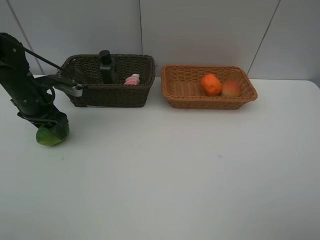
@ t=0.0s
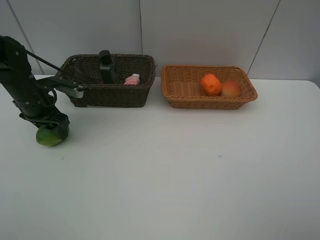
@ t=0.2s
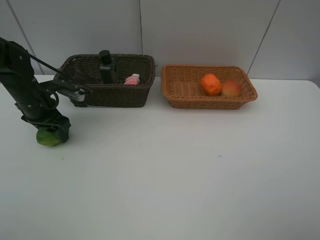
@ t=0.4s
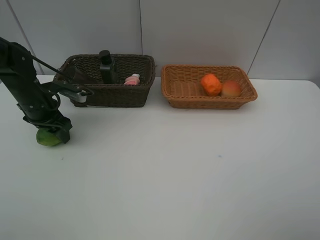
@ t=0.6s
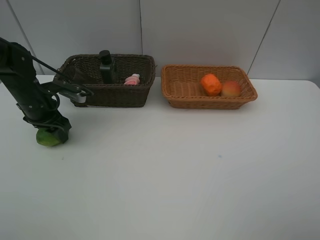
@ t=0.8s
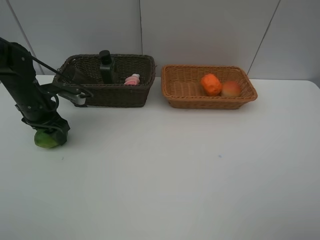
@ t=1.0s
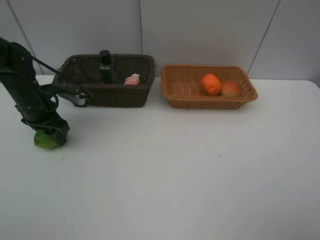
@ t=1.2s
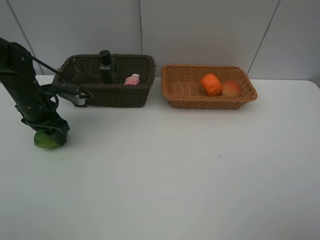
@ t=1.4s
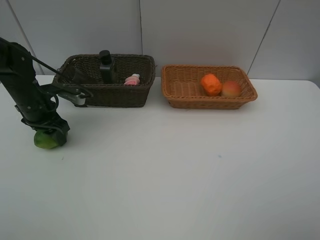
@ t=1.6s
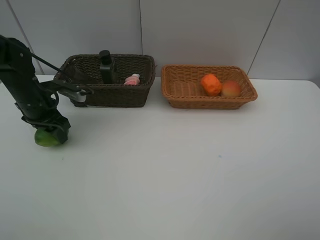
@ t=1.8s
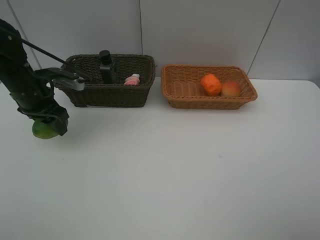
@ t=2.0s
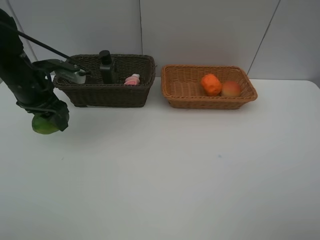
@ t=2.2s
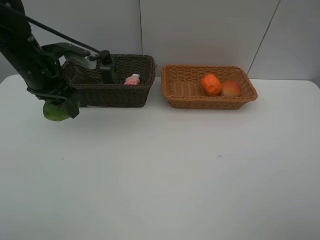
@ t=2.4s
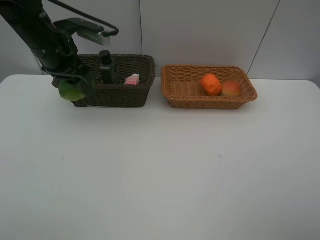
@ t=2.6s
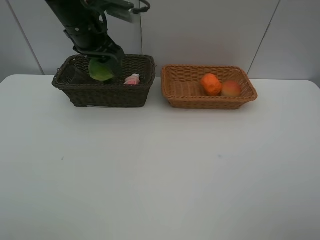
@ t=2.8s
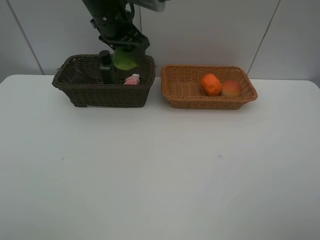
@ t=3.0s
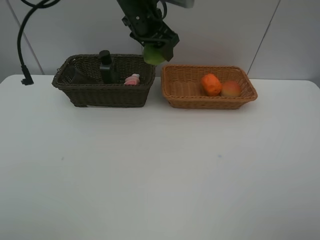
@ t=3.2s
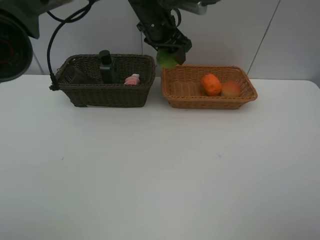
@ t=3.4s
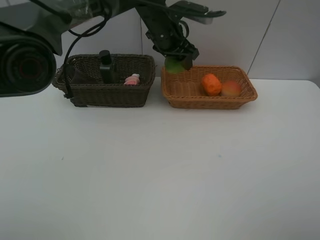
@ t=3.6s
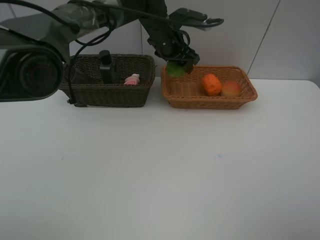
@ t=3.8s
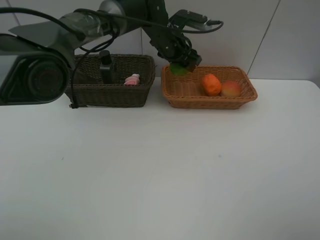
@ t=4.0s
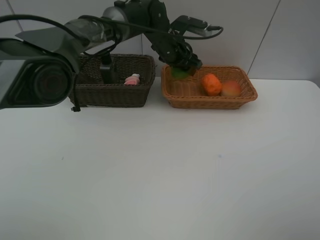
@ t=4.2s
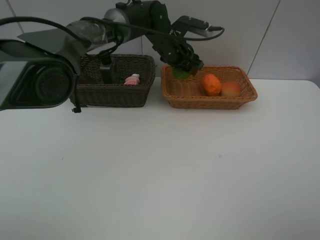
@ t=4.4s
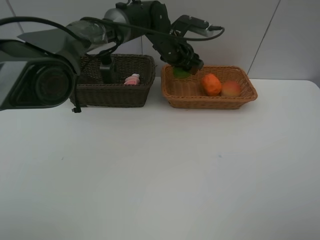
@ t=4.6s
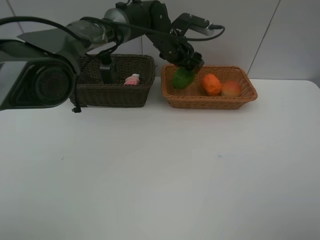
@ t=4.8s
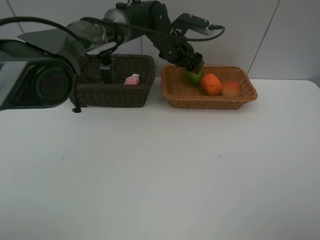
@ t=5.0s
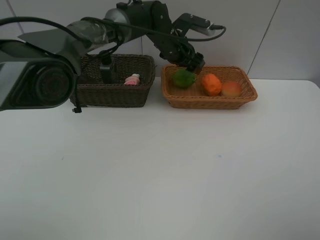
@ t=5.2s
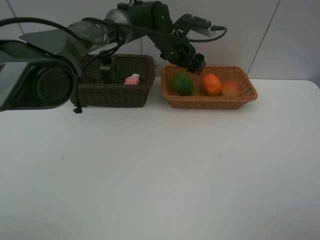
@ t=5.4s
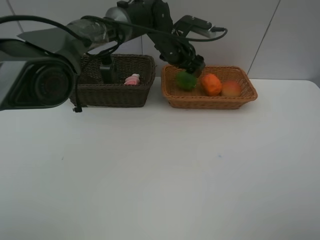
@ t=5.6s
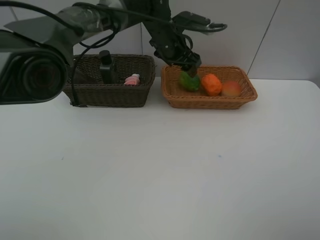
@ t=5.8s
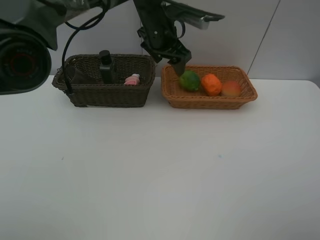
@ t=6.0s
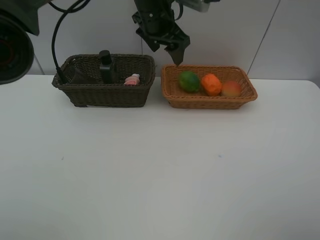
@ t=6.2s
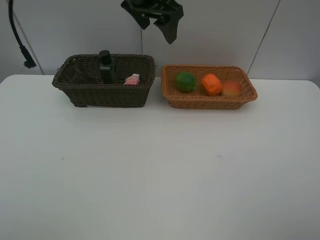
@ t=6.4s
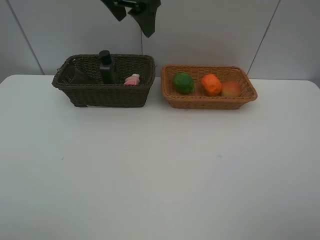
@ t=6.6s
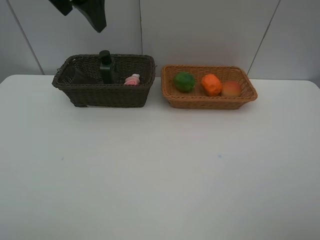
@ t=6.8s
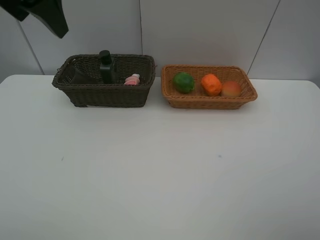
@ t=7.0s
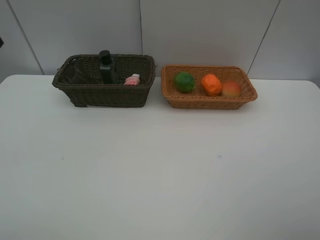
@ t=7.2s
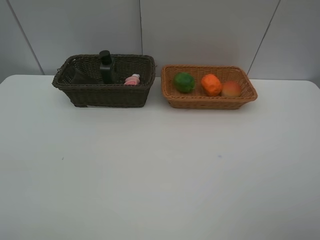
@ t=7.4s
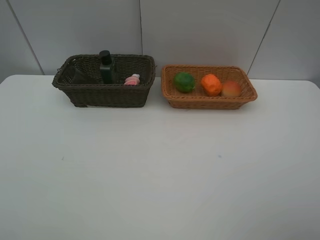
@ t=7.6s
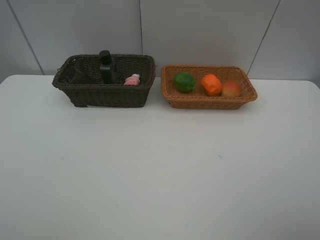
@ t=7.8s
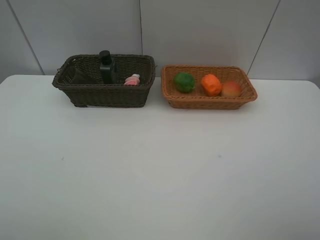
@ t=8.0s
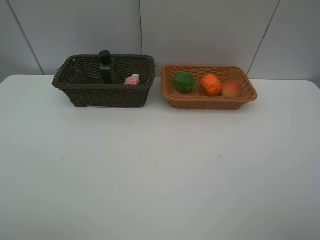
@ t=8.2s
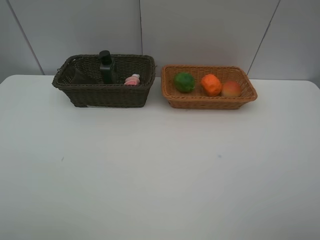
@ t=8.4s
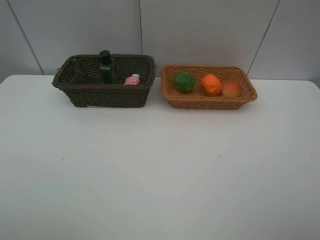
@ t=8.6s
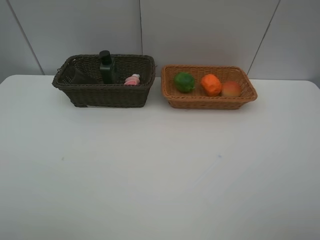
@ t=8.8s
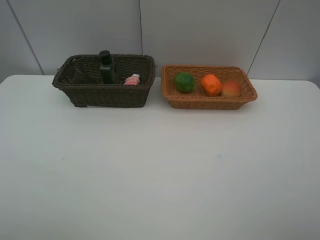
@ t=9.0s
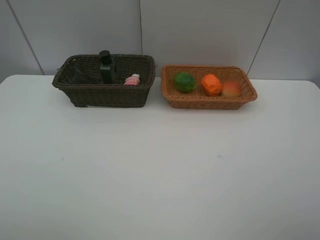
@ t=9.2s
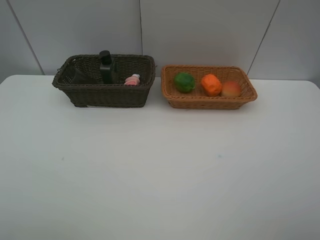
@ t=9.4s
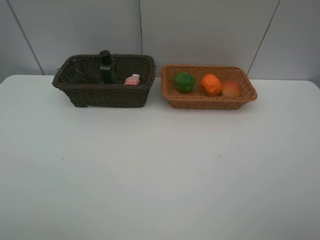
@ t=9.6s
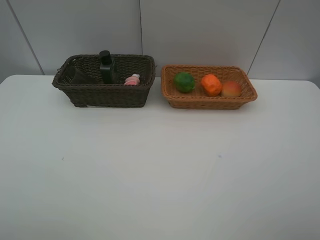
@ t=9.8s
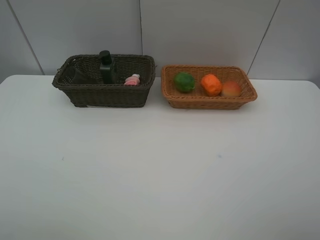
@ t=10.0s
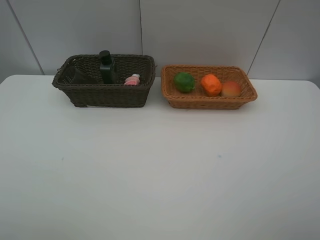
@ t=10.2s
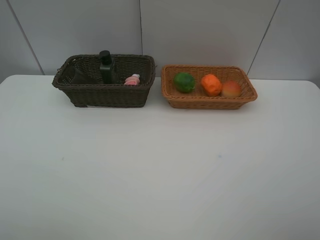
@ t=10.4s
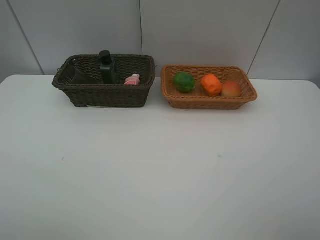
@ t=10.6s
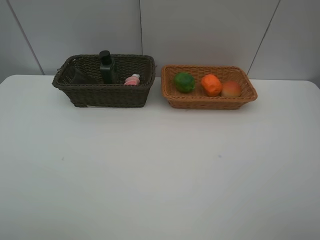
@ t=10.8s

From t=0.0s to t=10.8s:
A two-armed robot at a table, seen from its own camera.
Task of the whole recording: place multiple objects separately in different baskets.
From t=0.0s to t=1.6s: The grippers stay close to where they were, moving slightly.
From t=1.6s to t=3.0s: The left gripper travels to the right and upward by some 25 cm.
From t=3.0s to t=4.6s: The left gripper is displaced to the right, downward and forward by roughly 15 cm.
From t=4.6s to t=6.2s: The left gripper heads upward, covering some 10 cm.
From t=6.2s to t=7.8s: The left gripper heads backward and to the left, covering about 50 cm.
From t=9.2s to t=10.8s: The two grippers keep their place.

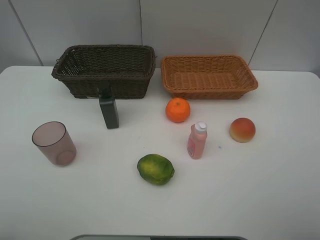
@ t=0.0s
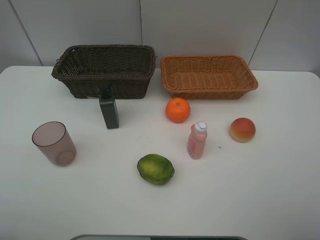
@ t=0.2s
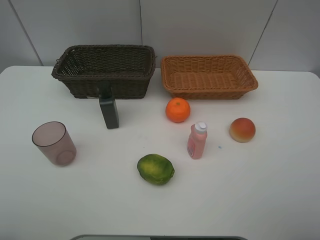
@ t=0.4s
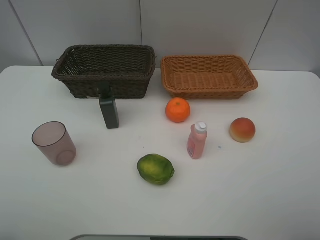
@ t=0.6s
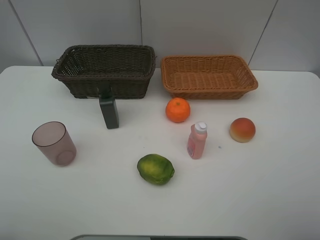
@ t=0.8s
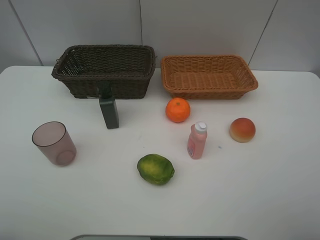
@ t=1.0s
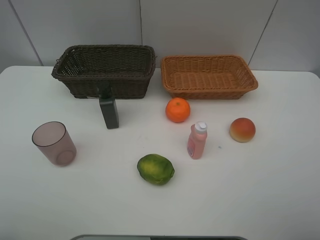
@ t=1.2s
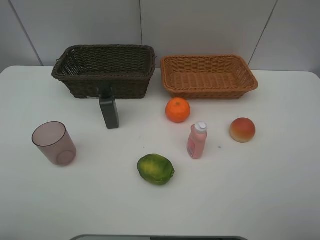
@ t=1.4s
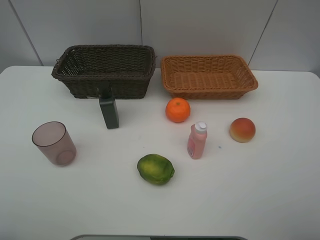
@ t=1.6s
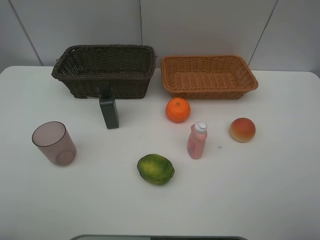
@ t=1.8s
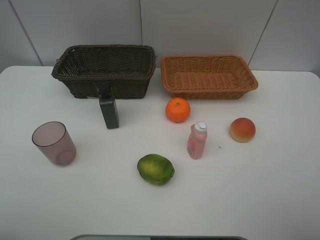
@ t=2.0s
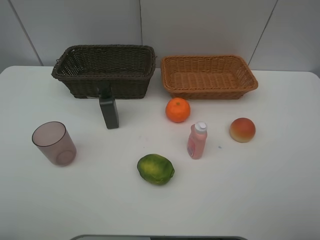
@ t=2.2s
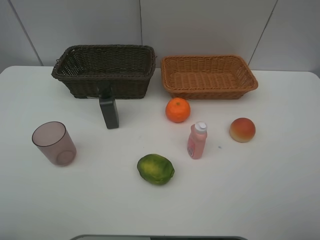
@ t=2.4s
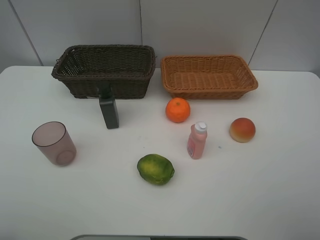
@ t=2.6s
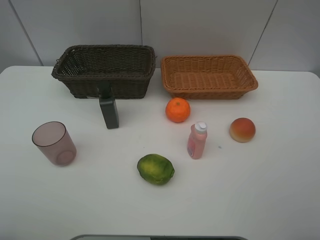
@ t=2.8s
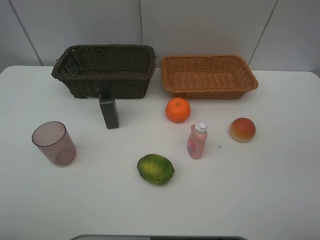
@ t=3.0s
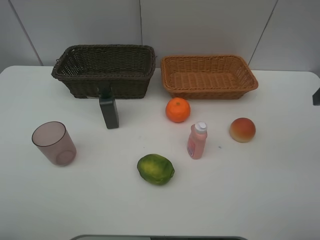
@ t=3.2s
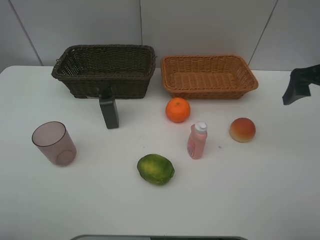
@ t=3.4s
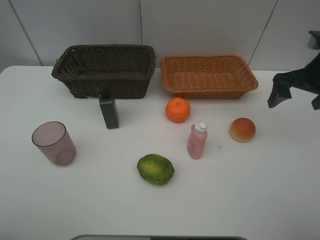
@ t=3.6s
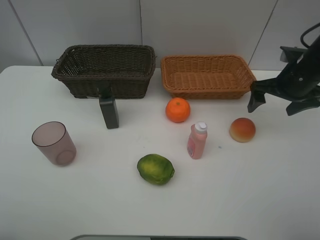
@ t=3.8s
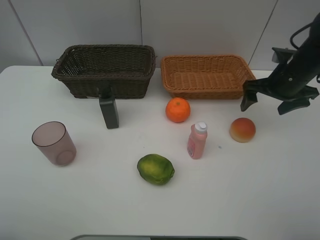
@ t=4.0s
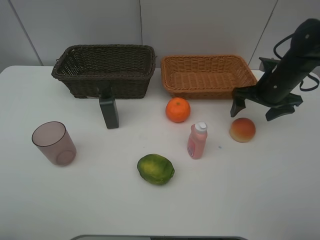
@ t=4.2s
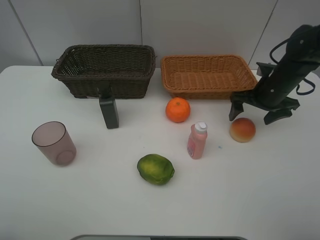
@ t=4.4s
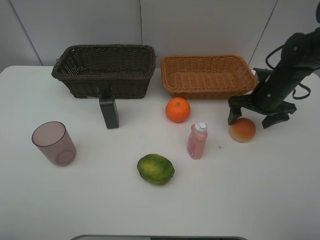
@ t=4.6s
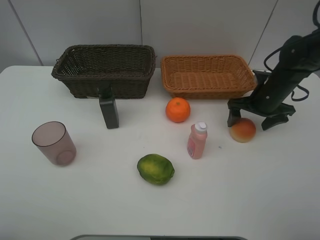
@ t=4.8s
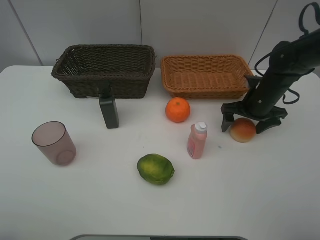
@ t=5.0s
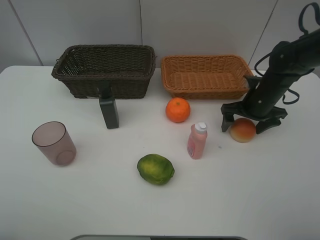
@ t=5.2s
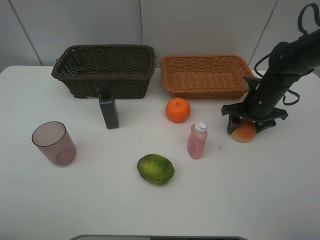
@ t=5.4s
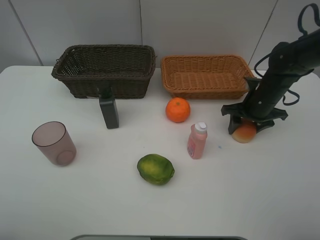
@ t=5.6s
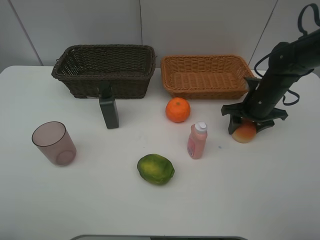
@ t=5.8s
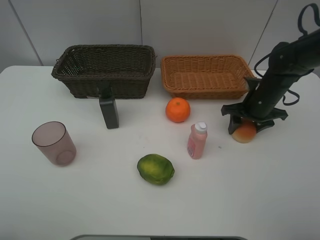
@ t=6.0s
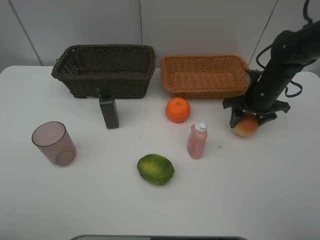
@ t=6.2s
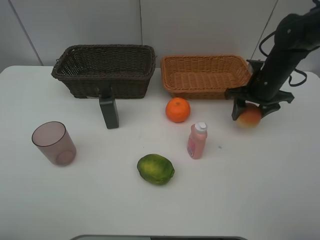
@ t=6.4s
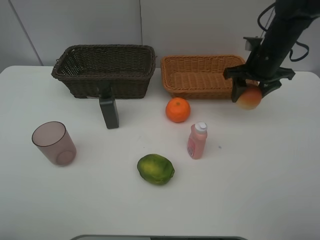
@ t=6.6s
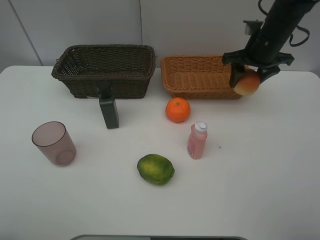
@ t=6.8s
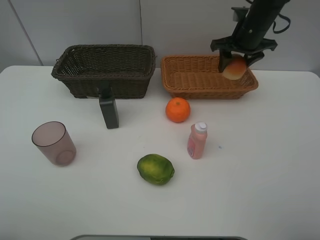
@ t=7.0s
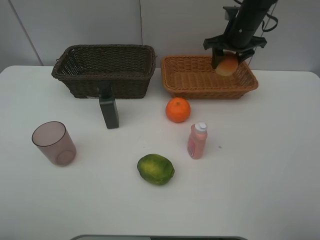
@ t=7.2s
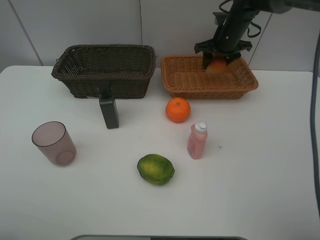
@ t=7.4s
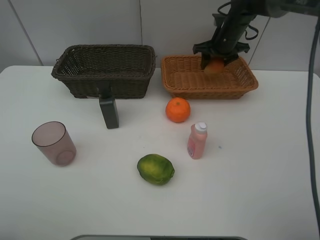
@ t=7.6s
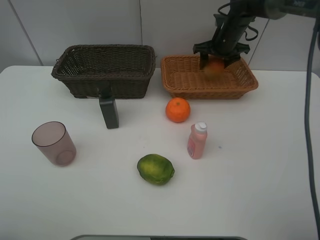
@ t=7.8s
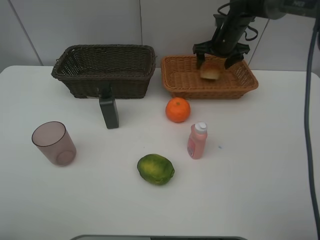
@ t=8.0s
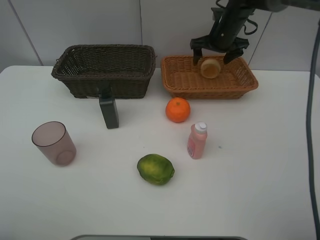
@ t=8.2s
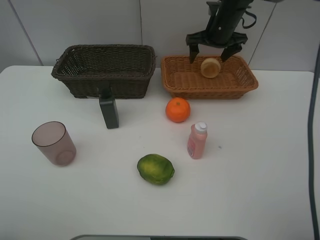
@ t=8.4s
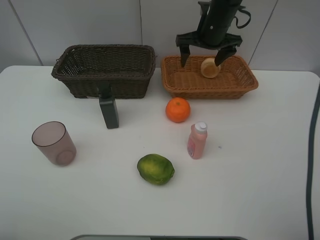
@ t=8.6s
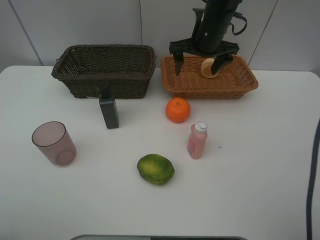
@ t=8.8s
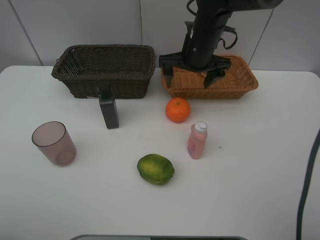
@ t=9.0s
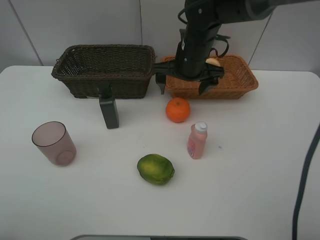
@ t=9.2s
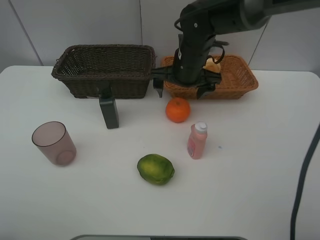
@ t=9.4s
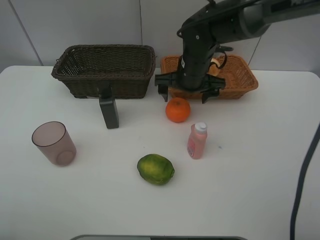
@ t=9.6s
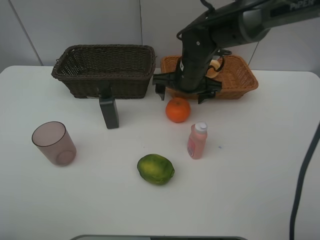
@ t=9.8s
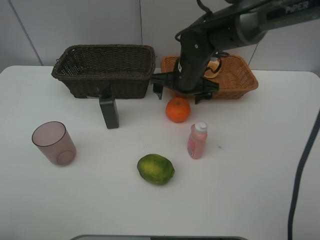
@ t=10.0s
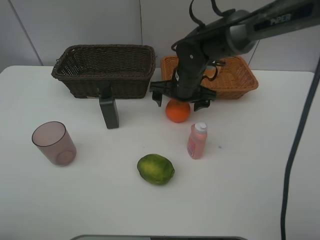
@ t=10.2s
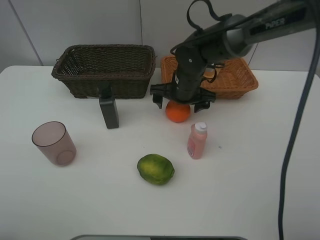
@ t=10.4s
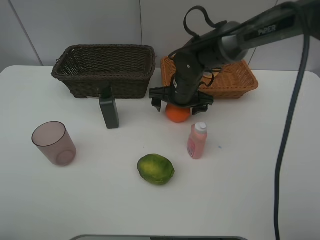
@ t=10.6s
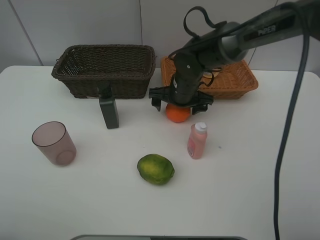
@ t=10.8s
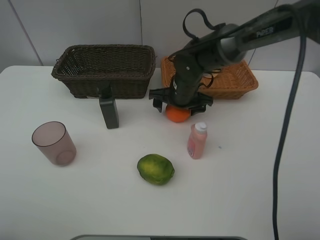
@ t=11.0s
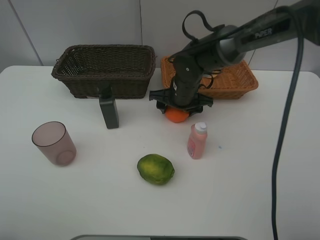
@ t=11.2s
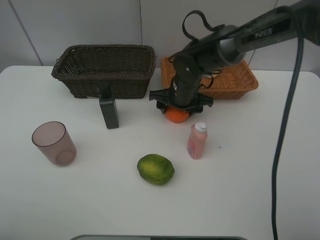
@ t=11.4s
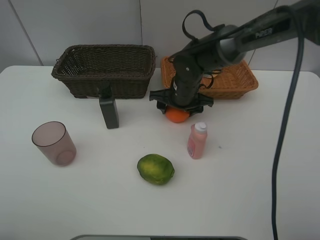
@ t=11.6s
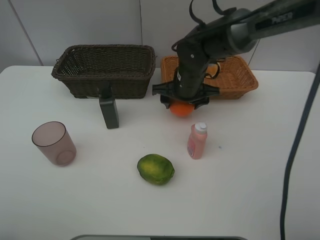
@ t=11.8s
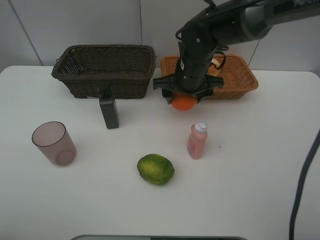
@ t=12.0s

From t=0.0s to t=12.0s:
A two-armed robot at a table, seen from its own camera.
Task of the whole recording: place multiple objects separately in different baskets.
From t=0.0s to t=1.6s: The two grippers keep their place.
From t=3.0s to t=4.4s: The right gripper travels forward and downward by roughly 25 cm.
From t=4.4s to t=6.0s: The right gripper closes.
From t=6.0s to t=7.6s: The right gripper heads forward and upward, covering about 20 cm.
From t=7.6s to t=9.0s: The right gripper is displaced backward and to the left by roughly 15 cm, and opens its fingers.
From t=9.0s to t=10.4s: The right gripper moves downward, roughly 10 cm.
From t=10.4s to t=12.0s: The right gripper shifts by some 5 cm, and closes.
